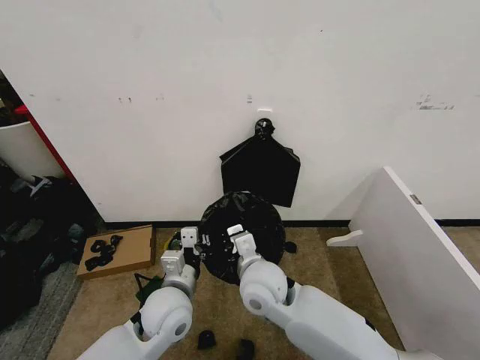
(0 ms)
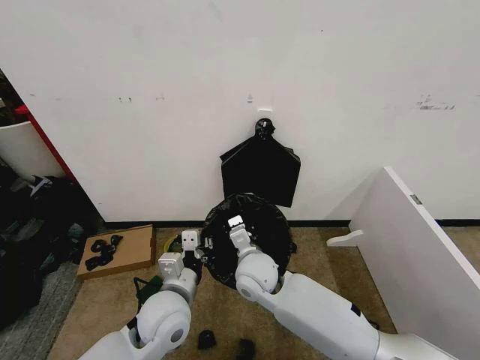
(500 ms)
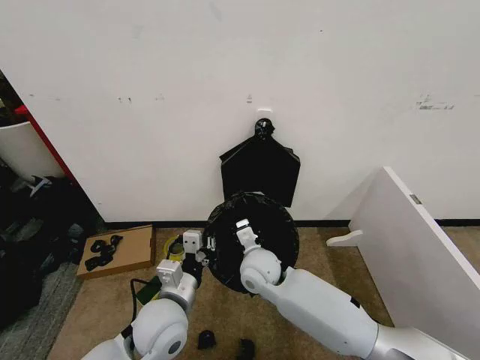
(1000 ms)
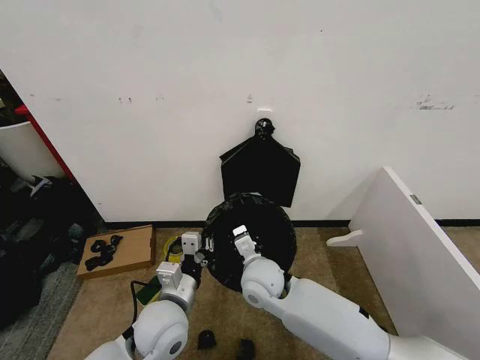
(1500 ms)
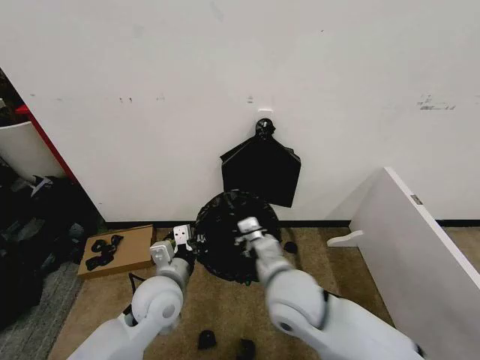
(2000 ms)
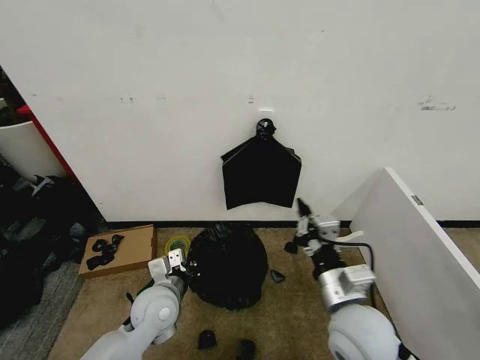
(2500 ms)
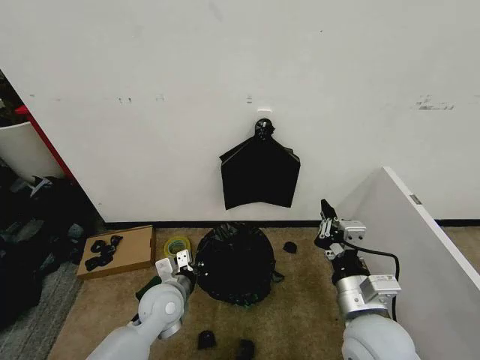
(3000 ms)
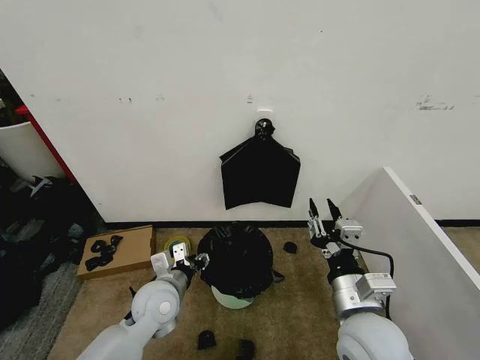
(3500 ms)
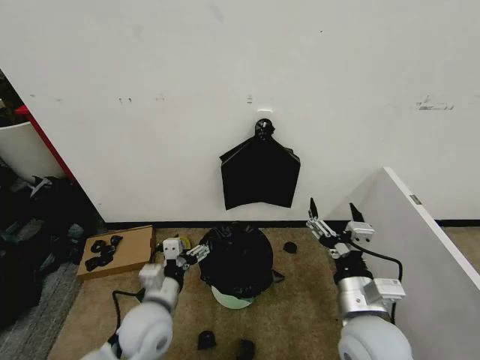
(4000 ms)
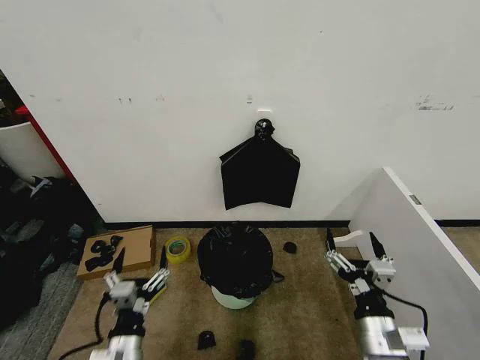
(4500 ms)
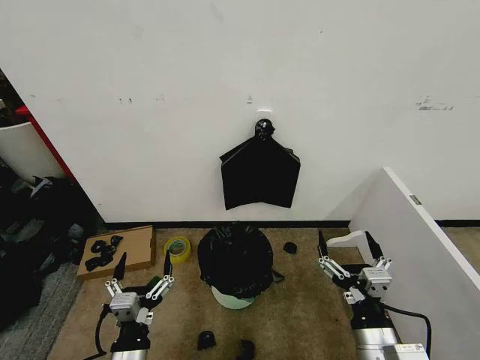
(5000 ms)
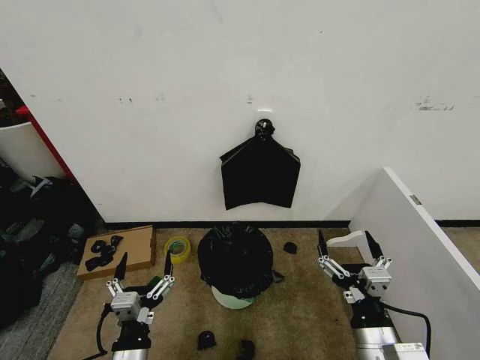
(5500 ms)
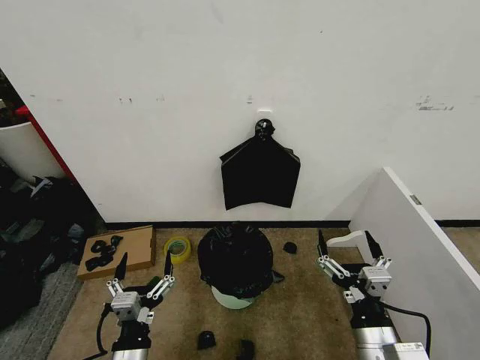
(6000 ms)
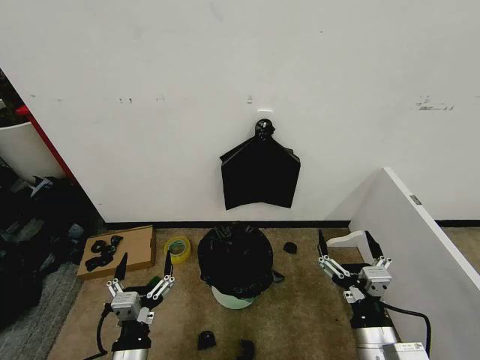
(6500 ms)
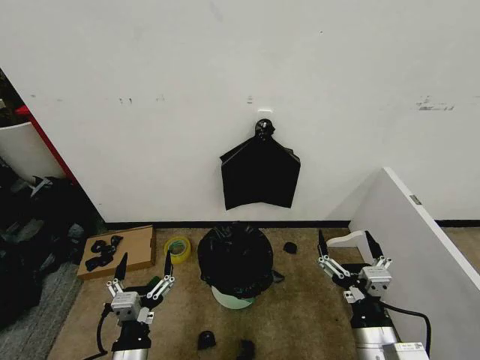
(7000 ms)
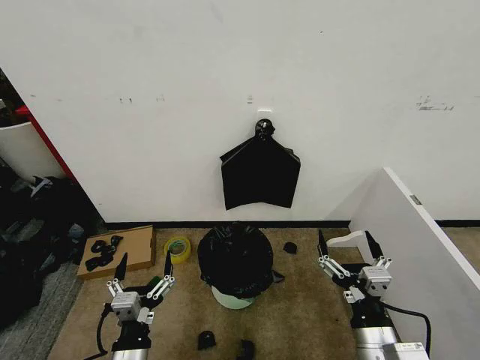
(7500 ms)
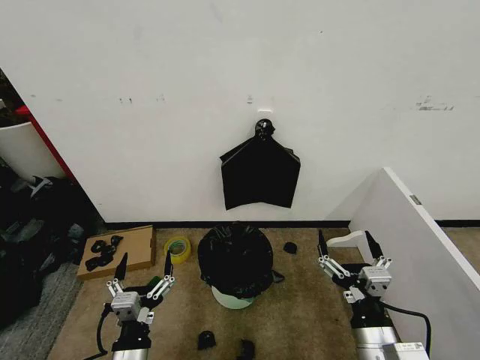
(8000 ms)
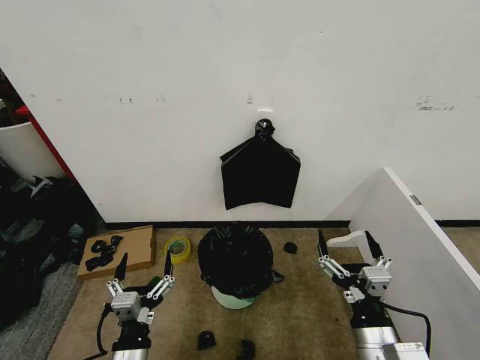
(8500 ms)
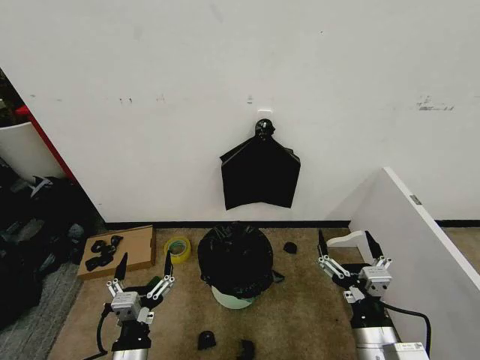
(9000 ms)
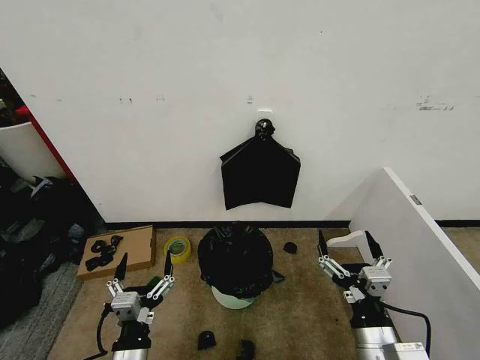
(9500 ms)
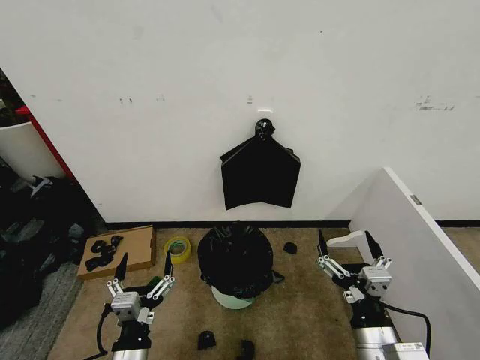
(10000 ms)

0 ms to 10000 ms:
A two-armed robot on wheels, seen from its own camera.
Task of the whole recording: Place the garbage bag over the trash bin.
0 ms to 2000 ms: The right gripper changes place by roughly 5 cm.
2000 ms to 4000 ms: The right gripper goes some 15 cm to the right and backward, and opens, while the left gripper changes place by approximately 5 cm, and opens.
4000 ms to 6000 ms: The left gripper heads backward, covering some 10 cm, while the right gripper moves backward, roughly 5 cm.
6000 ms to 10000 ms: Neither gripper changes place.
